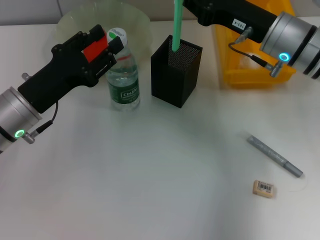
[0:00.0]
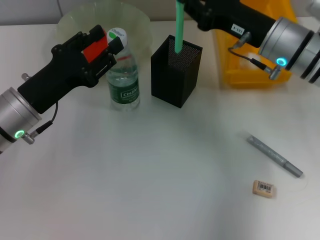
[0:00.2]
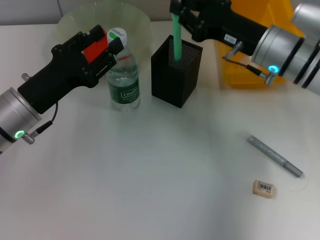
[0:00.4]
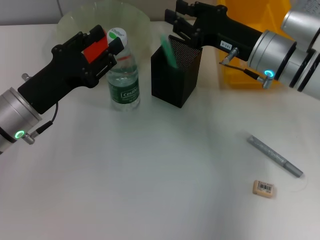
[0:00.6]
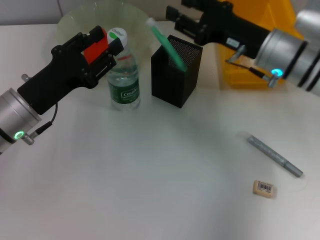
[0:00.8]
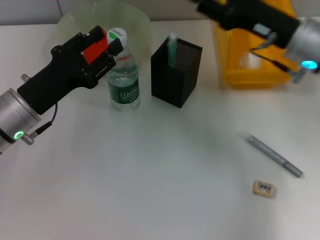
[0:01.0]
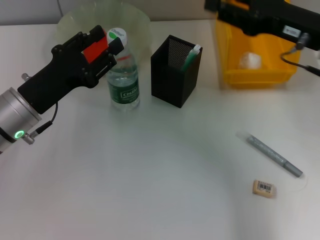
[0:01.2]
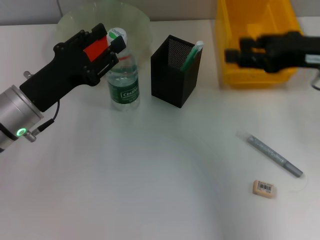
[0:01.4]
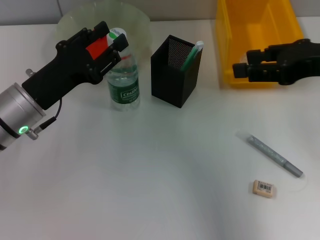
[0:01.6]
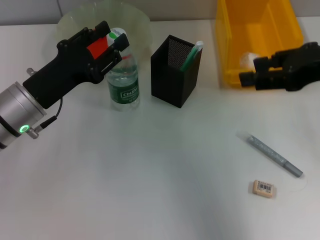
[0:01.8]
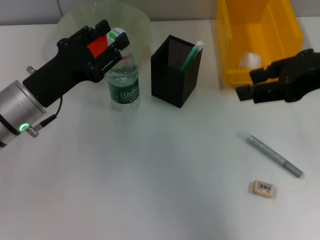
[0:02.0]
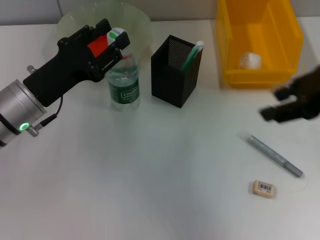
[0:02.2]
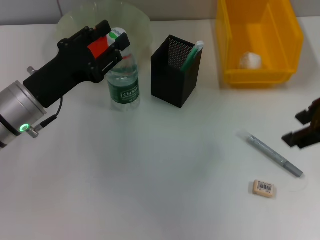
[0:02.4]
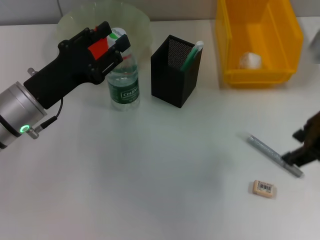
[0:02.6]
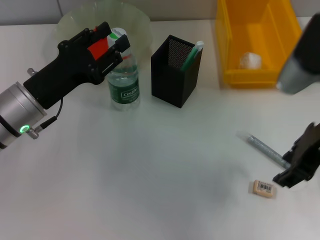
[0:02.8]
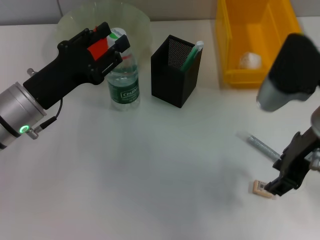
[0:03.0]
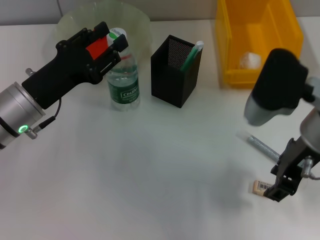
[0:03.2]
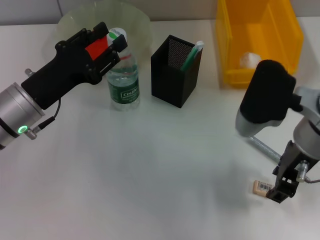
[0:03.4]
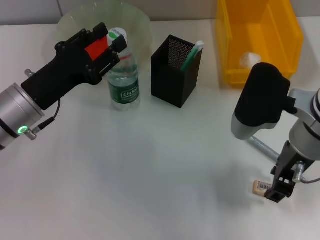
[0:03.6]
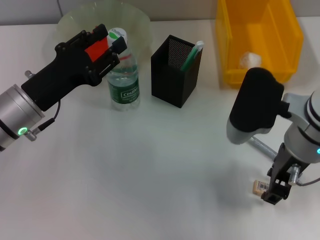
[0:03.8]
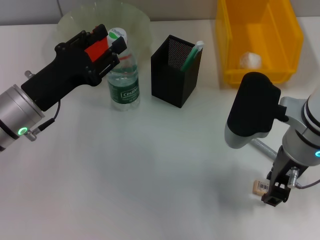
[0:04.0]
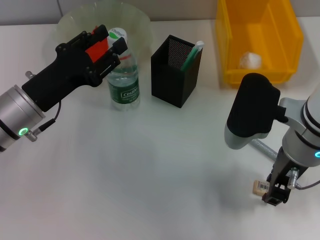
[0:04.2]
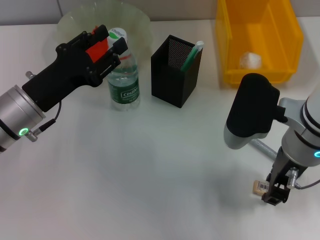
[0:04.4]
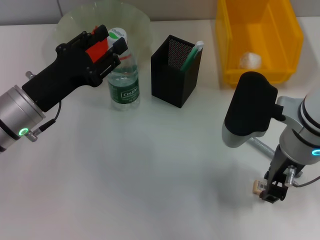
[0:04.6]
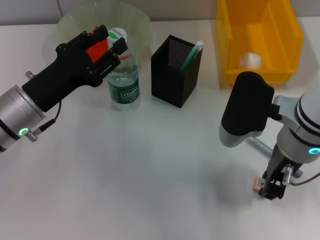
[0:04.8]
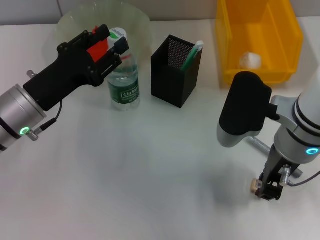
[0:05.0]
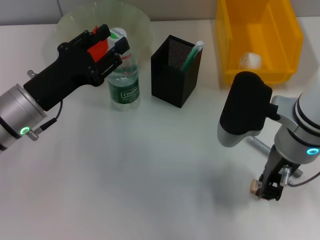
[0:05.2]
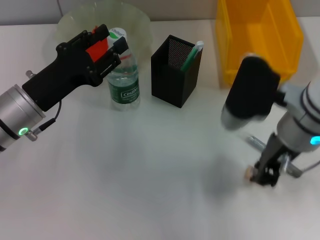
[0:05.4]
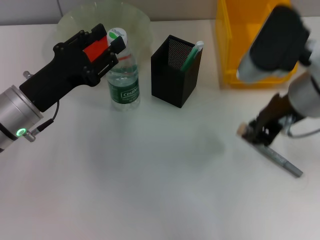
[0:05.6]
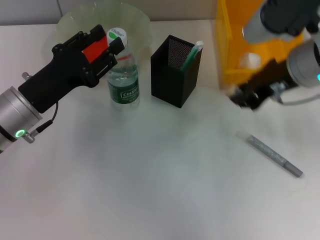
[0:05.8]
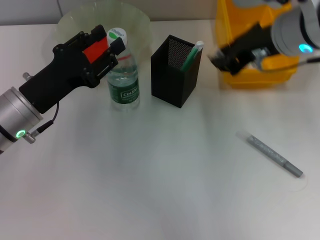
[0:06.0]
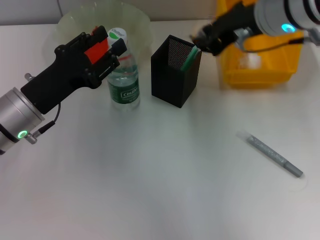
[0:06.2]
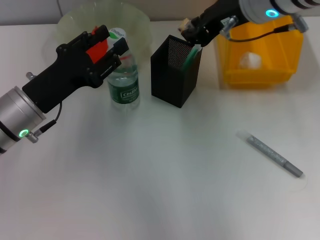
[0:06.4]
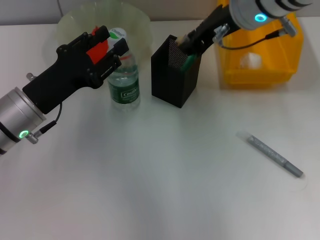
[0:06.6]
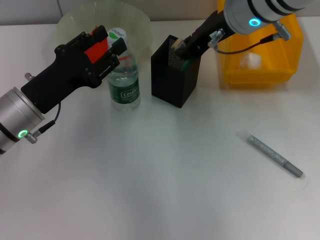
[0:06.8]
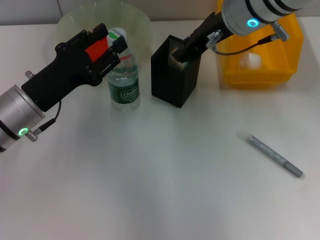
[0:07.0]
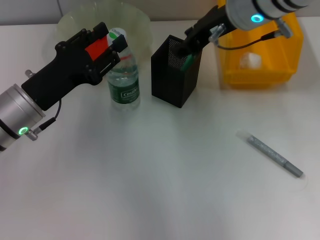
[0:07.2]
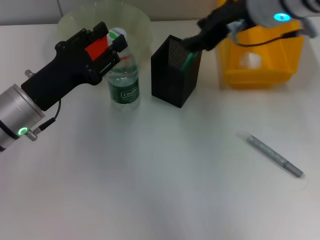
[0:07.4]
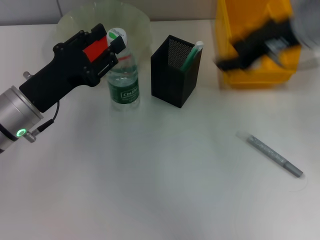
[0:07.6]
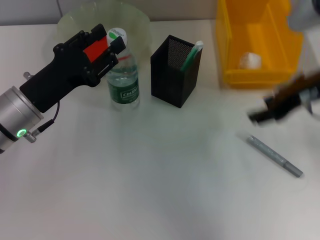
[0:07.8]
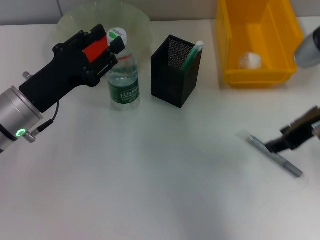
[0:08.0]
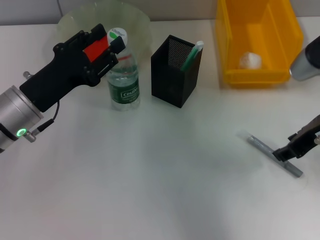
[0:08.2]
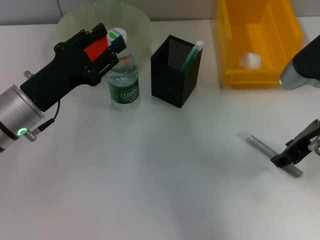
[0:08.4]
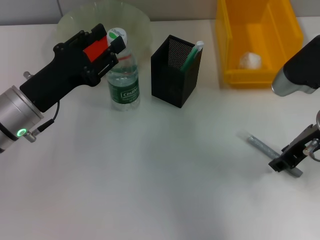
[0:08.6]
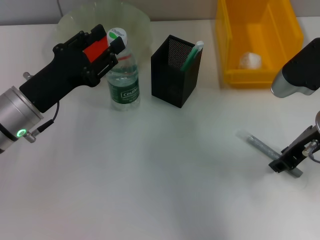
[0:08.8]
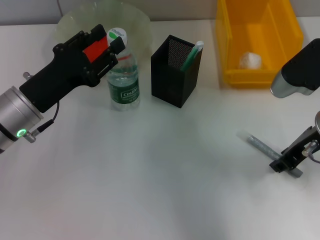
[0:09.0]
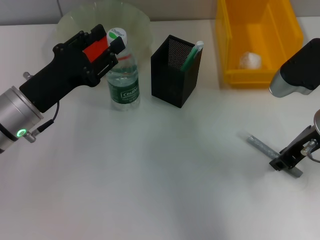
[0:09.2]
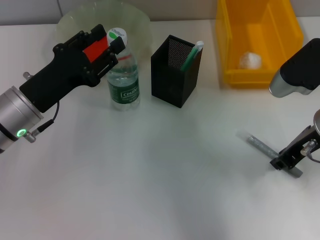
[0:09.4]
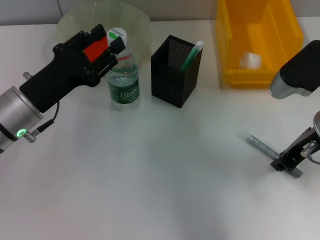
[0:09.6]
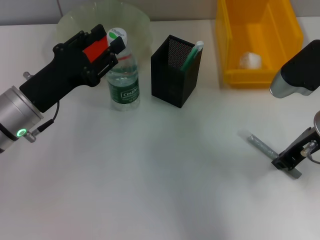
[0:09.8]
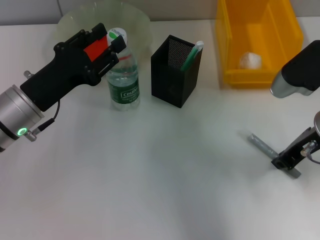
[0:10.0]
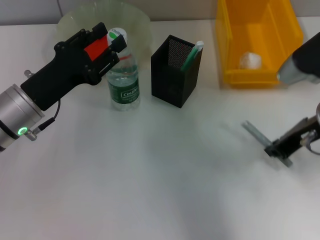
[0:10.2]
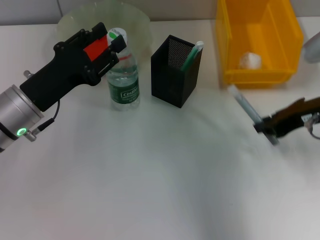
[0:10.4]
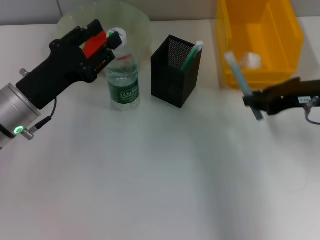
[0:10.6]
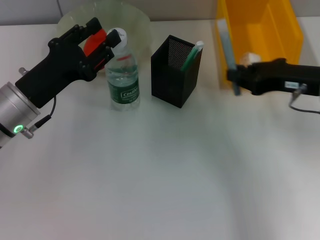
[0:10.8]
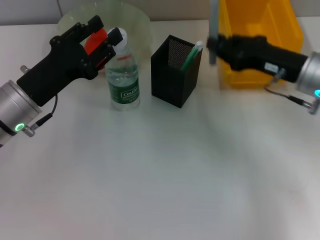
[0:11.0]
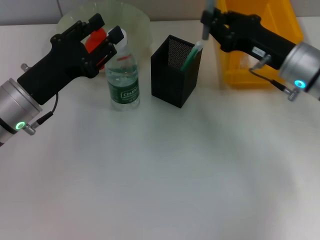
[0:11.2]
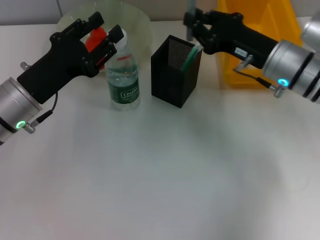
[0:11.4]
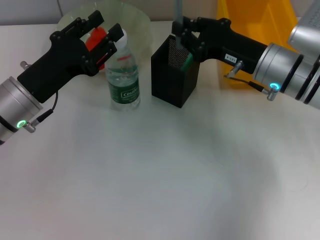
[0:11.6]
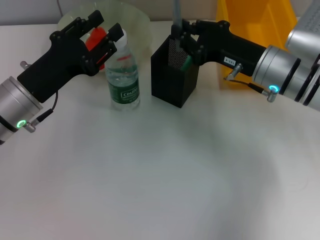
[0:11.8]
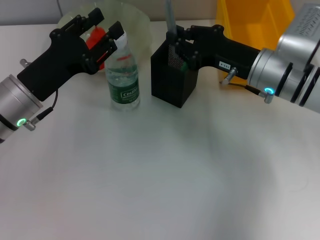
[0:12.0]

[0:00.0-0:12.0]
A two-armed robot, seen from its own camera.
Step, 0:01.0 to 0:05.0: Grab the eraser with the right hand.
Step, 0:05.2 to 0:07.0: Put the eraser into the pen holder with the right hand.
Step, 0:07.2 to 0:09.8: Grab the gray glue with the right hand.
0:00.0 to 0:01.6: The right gripper shifts approximately 15 cm upward, backward and to the right, and opens its fingers.
0:01.6 to 0:03.0: The right gripper goes approximately 5 cm to the left.
0:03.0 to 0:04.4: The right gripper shifts by about 5 cm.
0:04.4 to 0:06.0: The right gripper shifts about 10 cm upward and forward.
0:06.0 to 0:07.6: The right gripper opens.
0:07.6 to 0:09.0: The right gripper moves downward, approximately 10 cm.
0:09.0 to 0:10.4: The right gripper closes.
0:10.4 to 0:12.0: The right gripper moves to the left, downward and forward, approximately 10 cm.

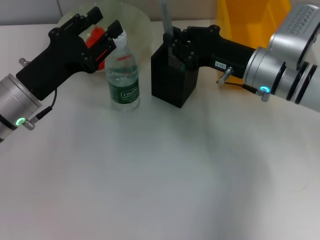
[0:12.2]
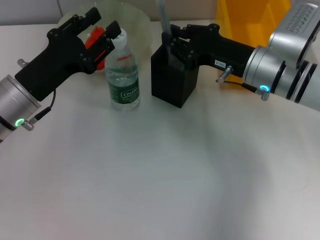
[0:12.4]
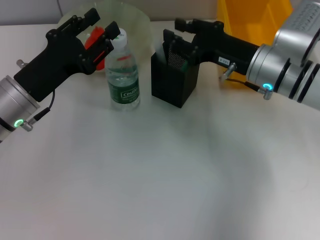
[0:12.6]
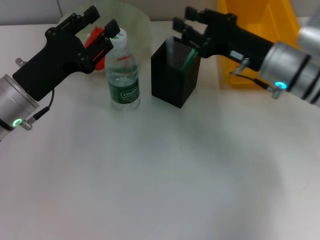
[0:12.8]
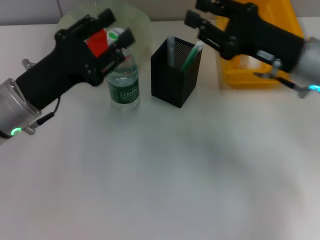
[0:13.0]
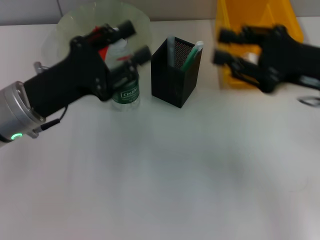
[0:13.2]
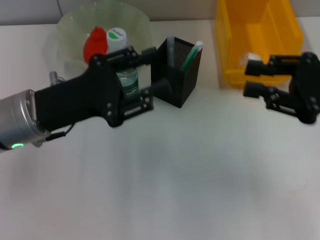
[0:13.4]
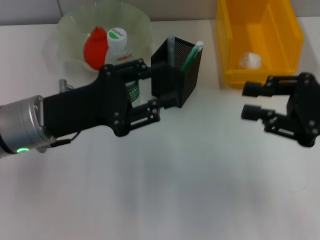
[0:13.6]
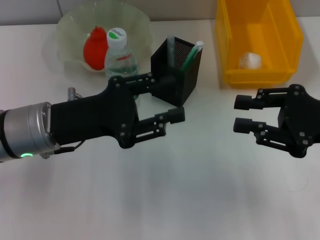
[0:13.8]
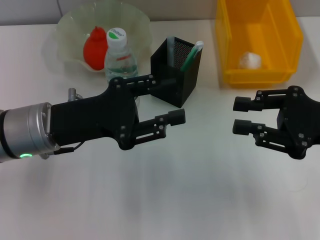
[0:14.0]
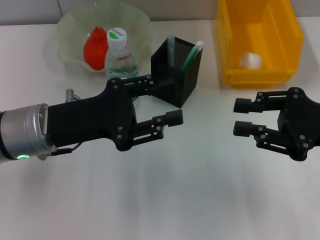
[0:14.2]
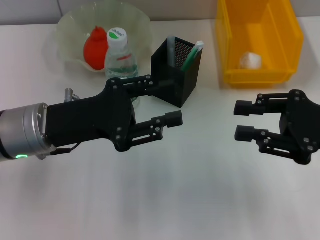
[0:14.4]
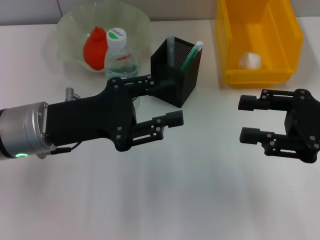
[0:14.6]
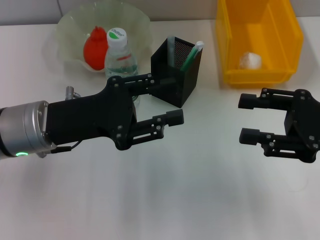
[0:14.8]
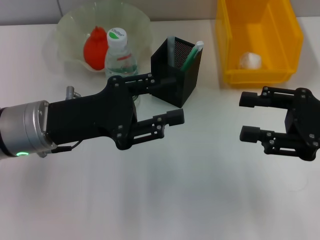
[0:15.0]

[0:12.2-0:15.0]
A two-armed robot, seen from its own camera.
0:12.2 to 0:13.6: The right gripper shifts some 15 cm to the right, backward and upward, and opens up.
0:13.6 to 0:15.0: The right gripper opens up.

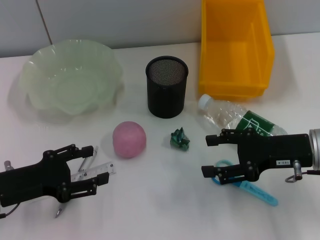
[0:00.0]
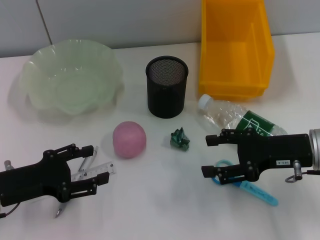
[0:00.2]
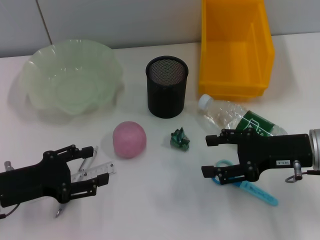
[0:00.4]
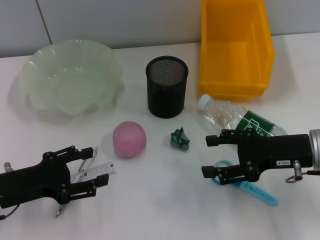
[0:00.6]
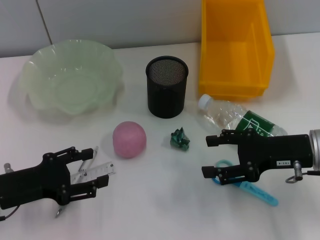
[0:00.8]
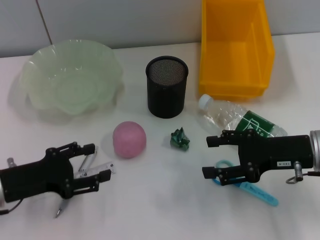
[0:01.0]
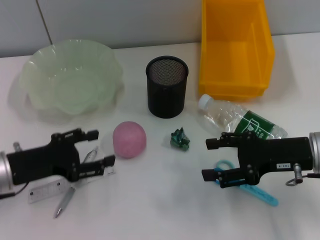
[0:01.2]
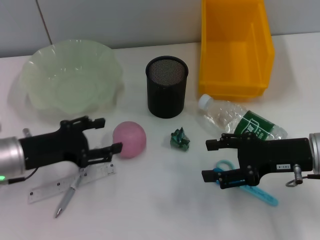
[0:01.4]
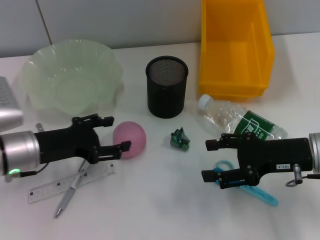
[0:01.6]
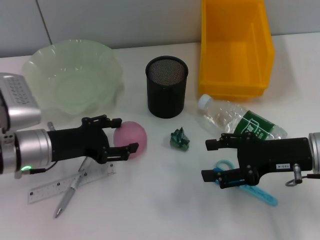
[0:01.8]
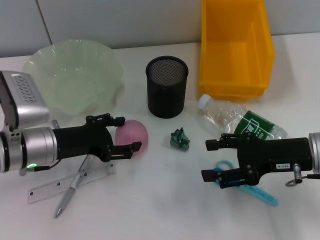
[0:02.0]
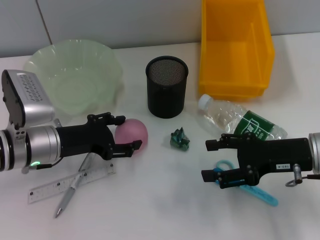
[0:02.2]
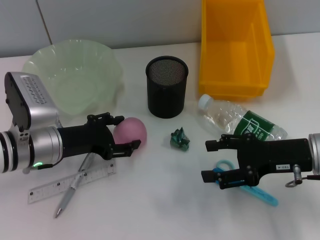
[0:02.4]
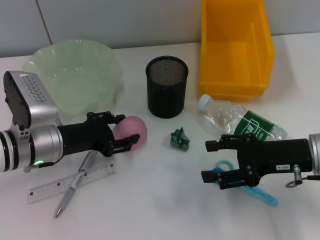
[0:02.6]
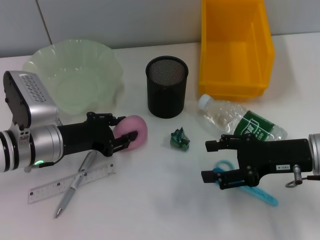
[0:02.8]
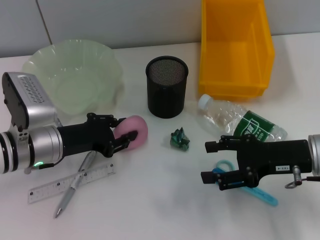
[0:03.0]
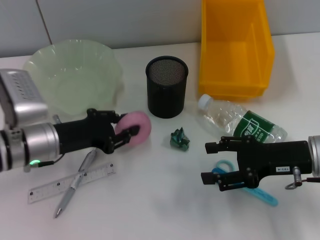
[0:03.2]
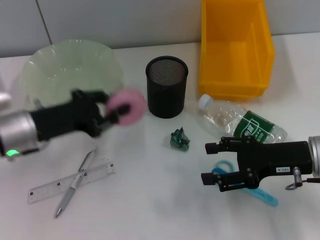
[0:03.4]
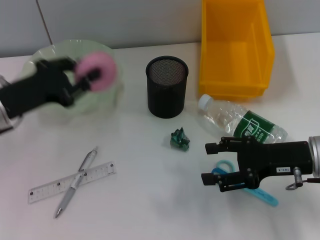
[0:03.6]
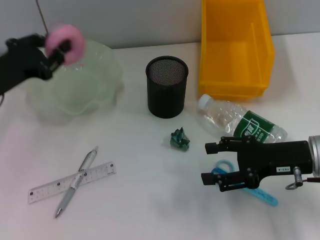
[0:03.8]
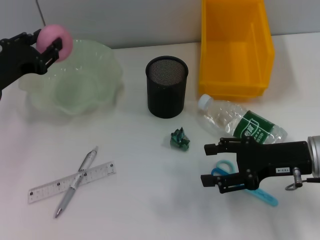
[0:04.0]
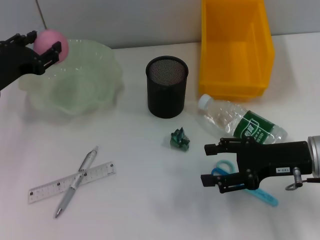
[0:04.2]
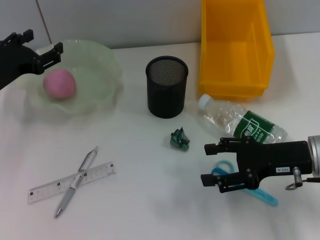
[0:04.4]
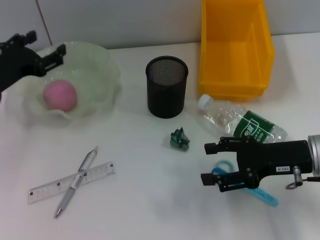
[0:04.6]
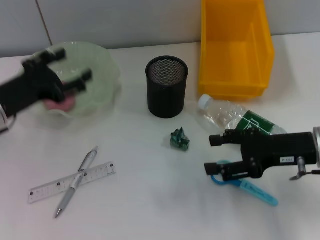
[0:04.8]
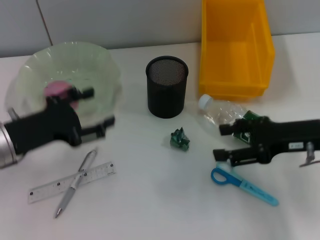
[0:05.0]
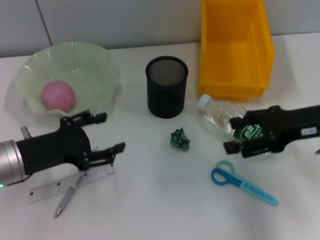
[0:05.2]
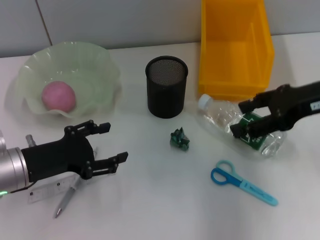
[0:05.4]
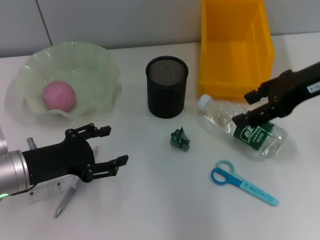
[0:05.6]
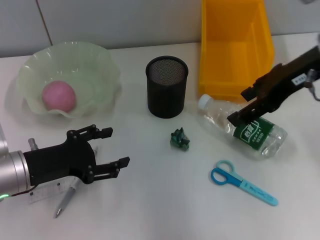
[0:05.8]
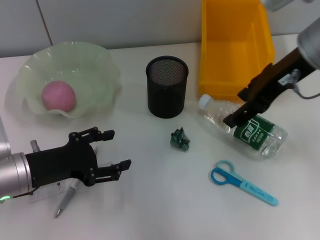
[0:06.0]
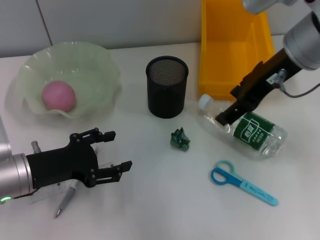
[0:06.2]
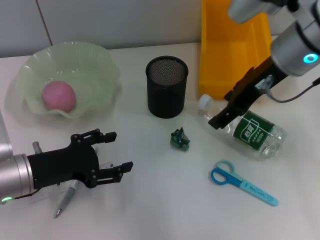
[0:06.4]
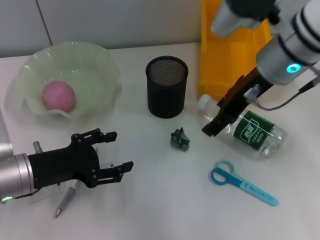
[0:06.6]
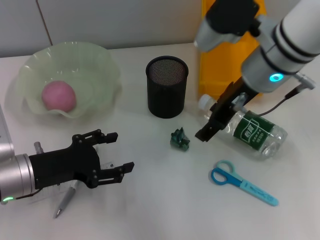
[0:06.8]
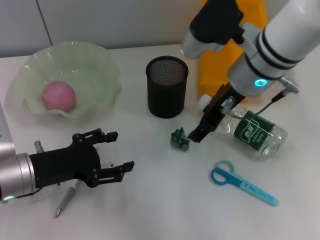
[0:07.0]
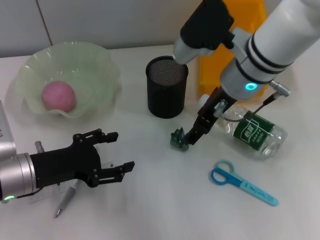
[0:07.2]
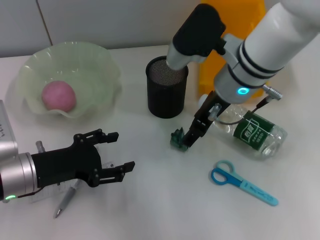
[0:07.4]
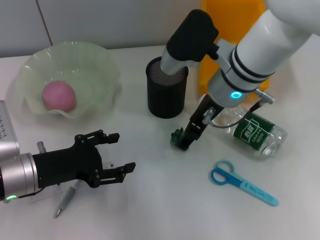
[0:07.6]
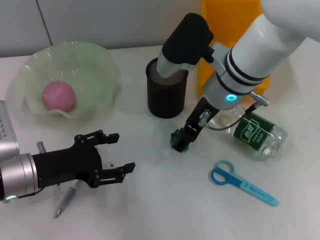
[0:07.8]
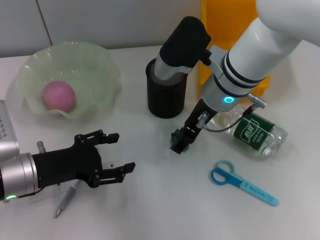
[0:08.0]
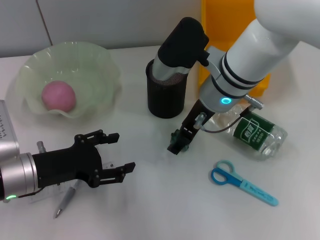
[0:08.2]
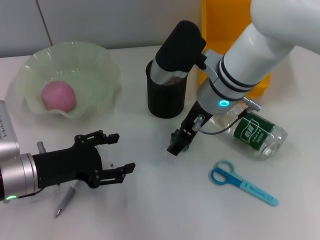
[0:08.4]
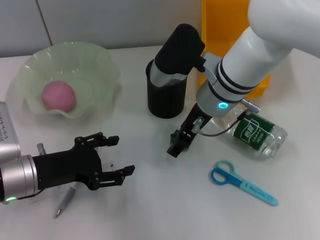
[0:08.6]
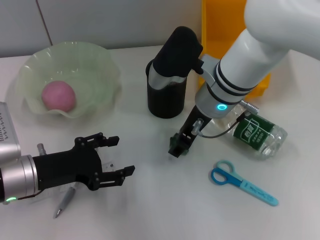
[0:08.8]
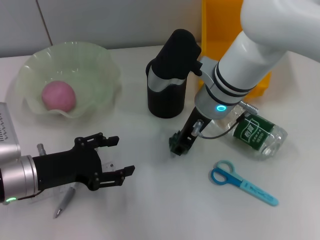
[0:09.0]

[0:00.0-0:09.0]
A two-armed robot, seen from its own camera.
Step, 0:00.0 to 0:02.8: Grab the peach with the left hand.
Step, 0:03.0 to 0:04.6: Place the peach into the fruit bowl with the left hand.
0:00.0 to 0:01.6: The left gripper travels forward by some 5 cm.
0:01.6 to 0:03.0: The grippers move only a little.
0:03.0 to 0:04.4: The left gripper is displaced to the left and upward by about 10 cm.
0:04.4 to 0:06.0: The left gripper travels backward by some 10 cm; the right gripper heads upward and forward, covering roughly 20 cm.
0:06.0 to 0:07.6: The right gripper moves to the left and downward, roughly 15 cm.
0:07.6 to 0:09.0: There are only small adjustments of the grippers.
